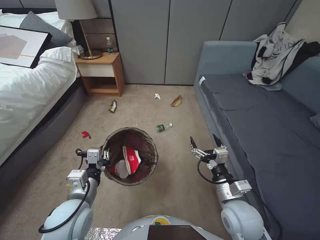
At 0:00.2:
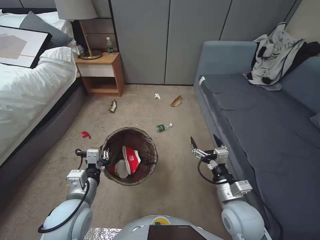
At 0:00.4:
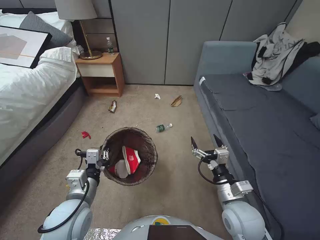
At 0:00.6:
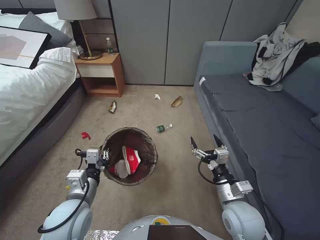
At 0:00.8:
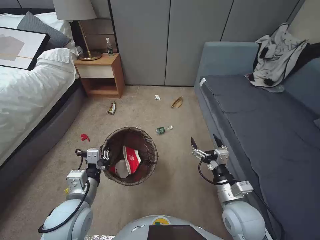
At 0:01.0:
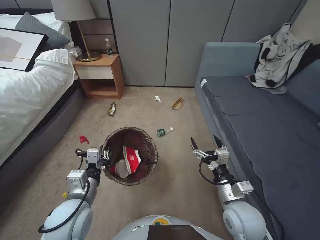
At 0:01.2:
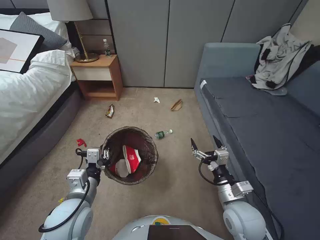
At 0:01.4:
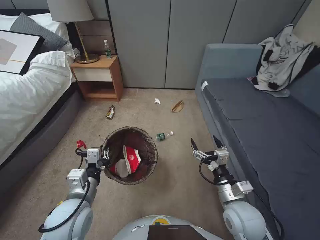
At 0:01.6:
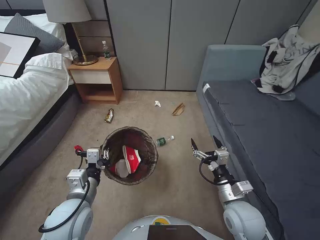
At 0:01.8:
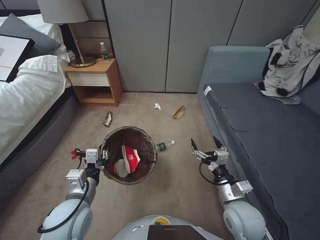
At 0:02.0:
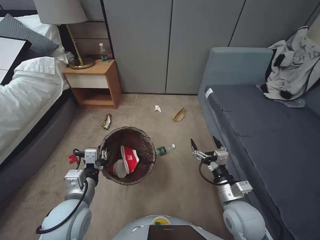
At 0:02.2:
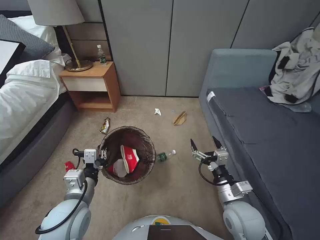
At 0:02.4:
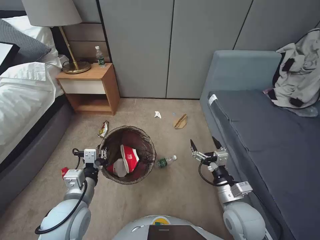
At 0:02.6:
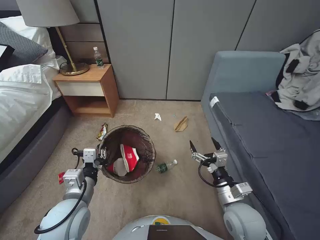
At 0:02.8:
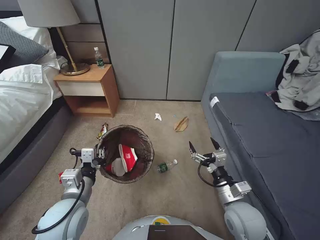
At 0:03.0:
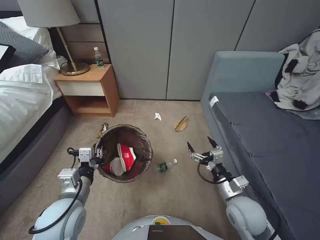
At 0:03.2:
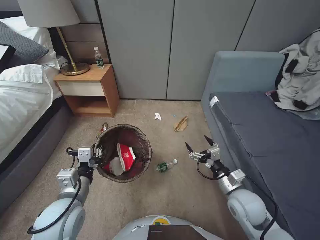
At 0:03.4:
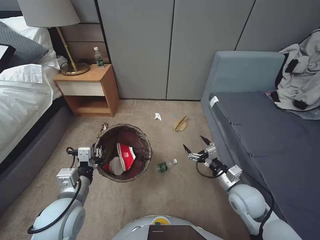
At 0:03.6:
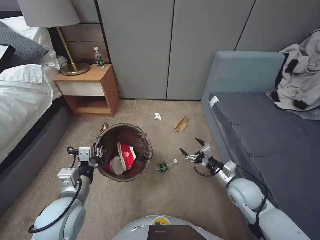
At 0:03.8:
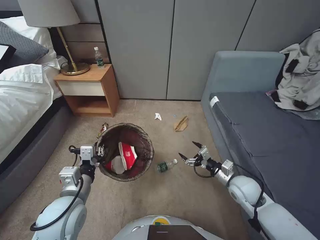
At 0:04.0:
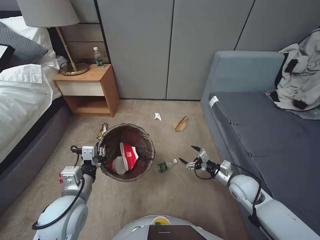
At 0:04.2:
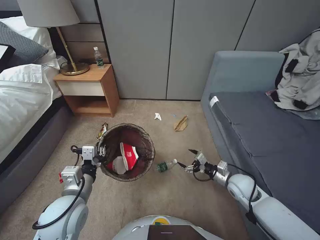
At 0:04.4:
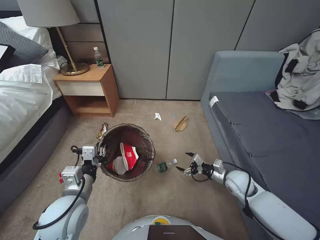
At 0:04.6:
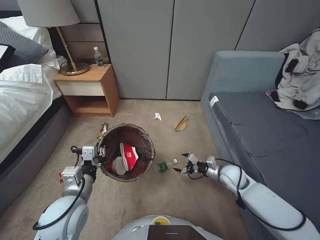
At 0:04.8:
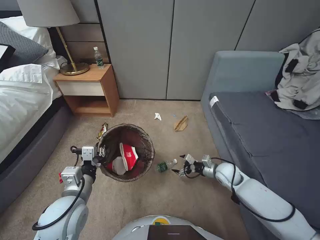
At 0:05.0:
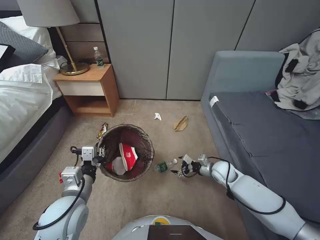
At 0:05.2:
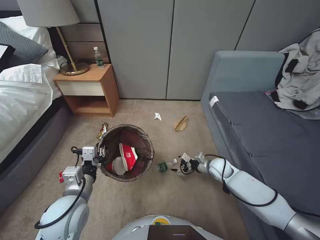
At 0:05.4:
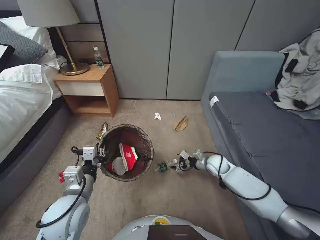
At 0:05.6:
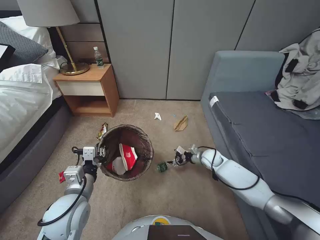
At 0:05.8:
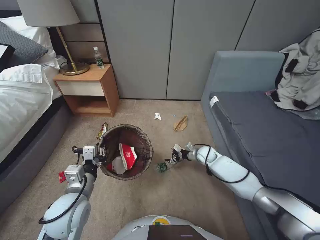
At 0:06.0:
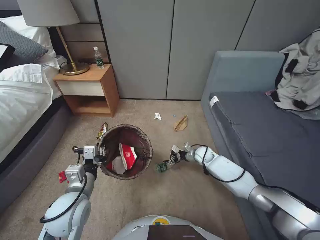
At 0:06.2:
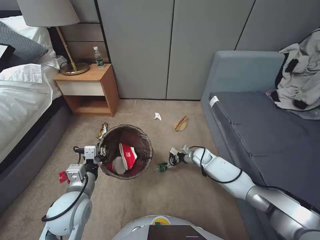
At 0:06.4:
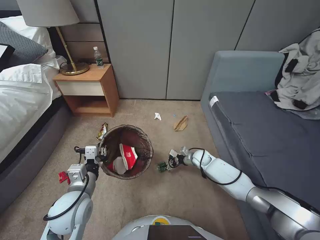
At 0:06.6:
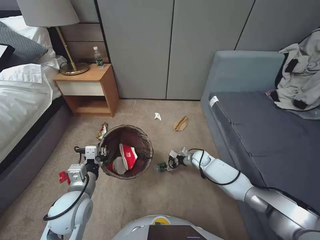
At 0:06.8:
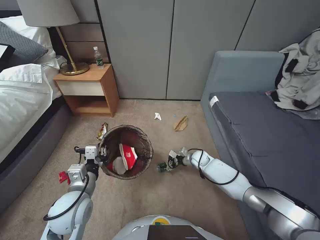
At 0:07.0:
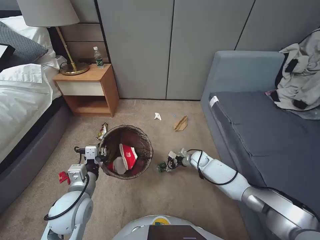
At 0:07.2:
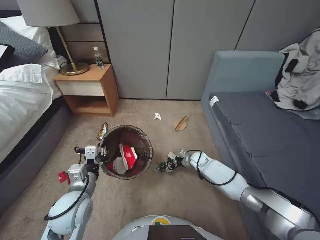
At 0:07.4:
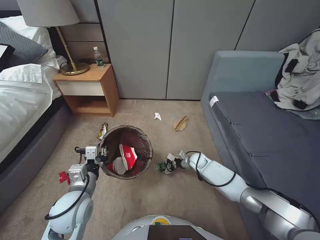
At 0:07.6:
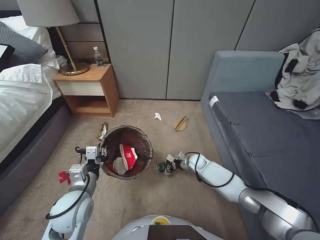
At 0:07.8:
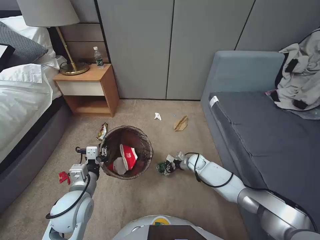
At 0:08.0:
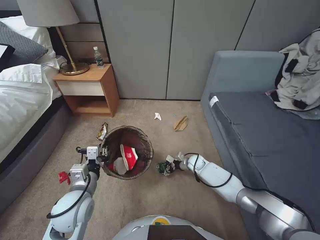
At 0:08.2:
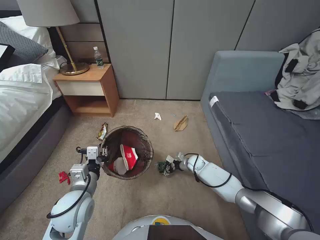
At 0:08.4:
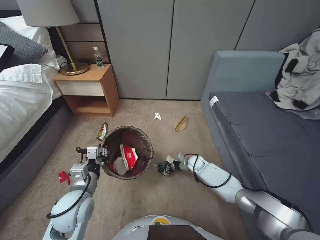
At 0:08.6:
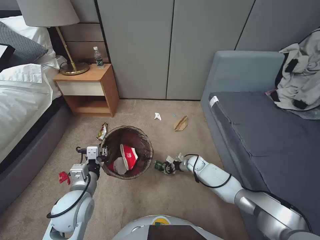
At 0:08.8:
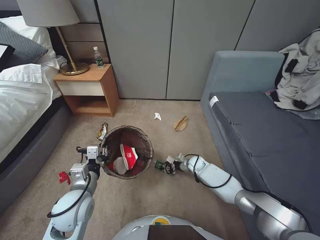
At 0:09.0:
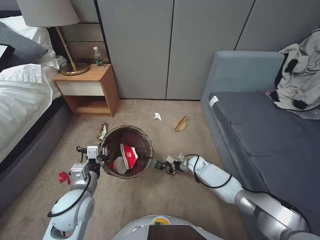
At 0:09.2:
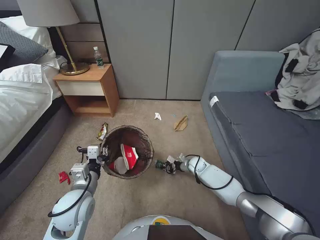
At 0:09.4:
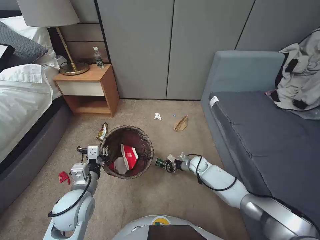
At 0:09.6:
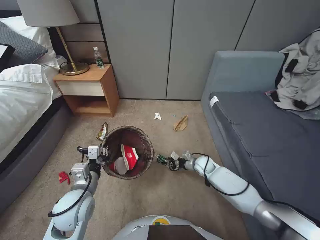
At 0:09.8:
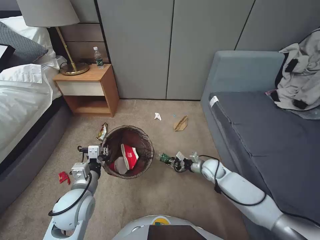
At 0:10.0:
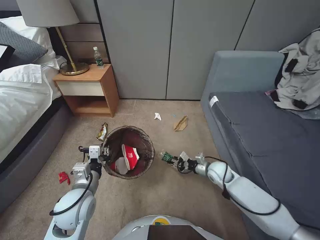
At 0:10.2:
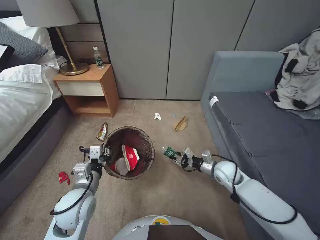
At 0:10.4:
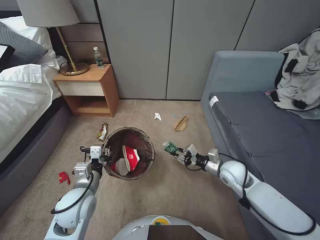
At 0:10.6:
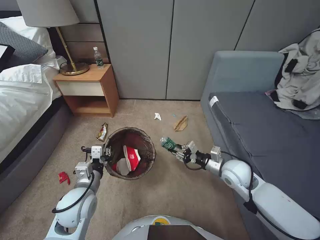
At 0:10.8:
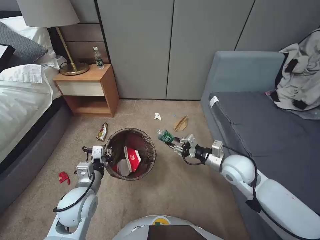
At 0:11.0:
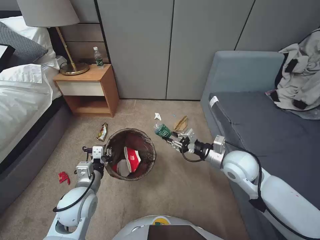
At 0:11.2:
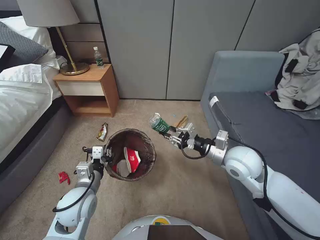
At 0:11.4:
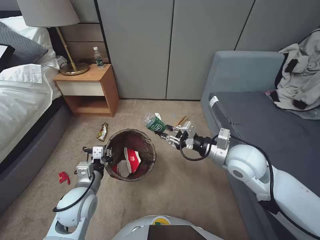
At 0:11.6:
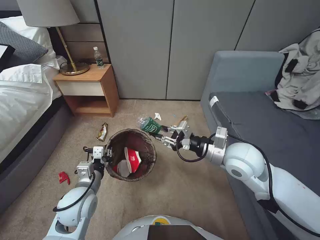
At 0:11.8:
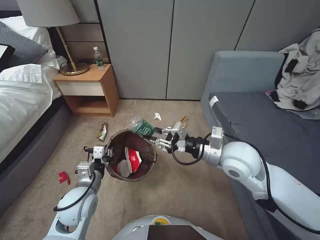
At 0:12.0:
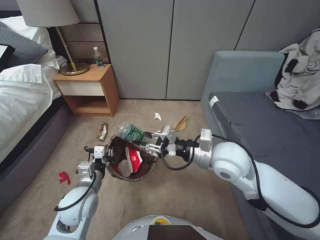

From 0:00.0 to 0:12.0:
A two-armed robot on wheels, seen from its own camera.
Task of the whole recording: Pick up the trash bin, then pick up the garbage from the floor and place it into the trash bin.
From 0:00.0 to 0:01.6: Neither gripper changes place.
From 0:03.0 to 0:04.4: The right gripper travels forward, to the right and downward by about 15 cm.
From 0:04.4 to 0:06.0: The right gripper shifts about 20 cm forward and to the left.
From 0:06.0 to 0:07.6: The right gripper is displaced downward by some 5 cm.
From 0:07.6 to 0:09.0: The right gripper closes.
From 0:09.0 to 0:10.4: The right gripper moves upward and backward, some 20 cm.
From 0:10.4 to 0:12.0: The right gripper travels upward and to the left by roughly 20 cm.

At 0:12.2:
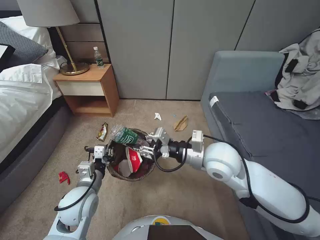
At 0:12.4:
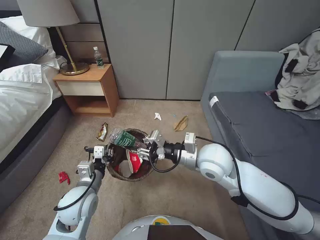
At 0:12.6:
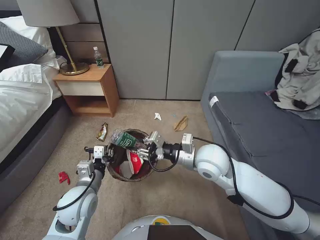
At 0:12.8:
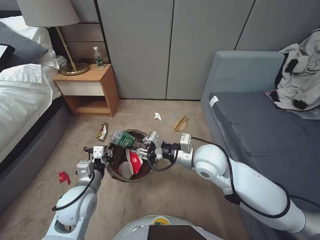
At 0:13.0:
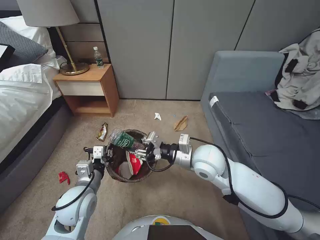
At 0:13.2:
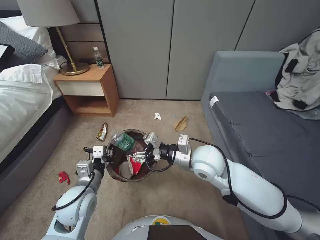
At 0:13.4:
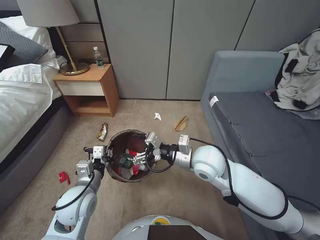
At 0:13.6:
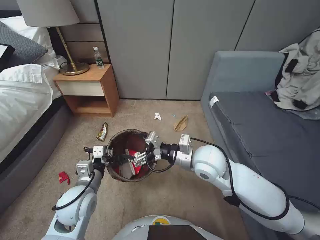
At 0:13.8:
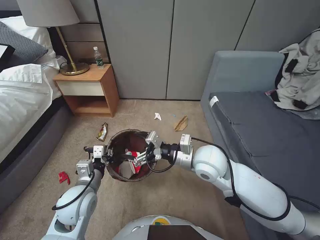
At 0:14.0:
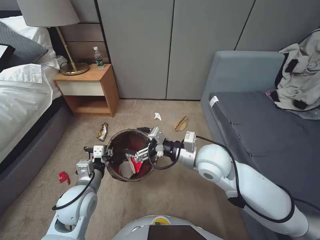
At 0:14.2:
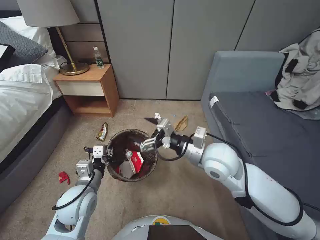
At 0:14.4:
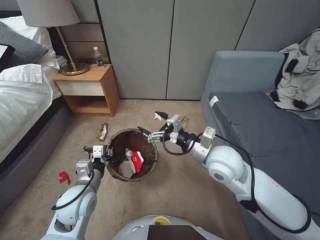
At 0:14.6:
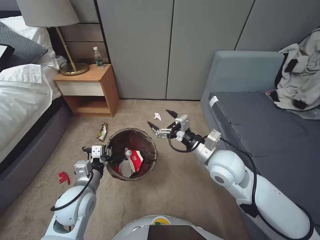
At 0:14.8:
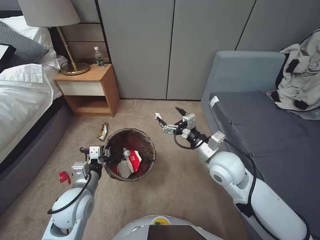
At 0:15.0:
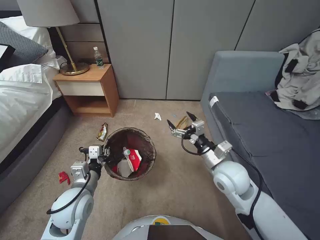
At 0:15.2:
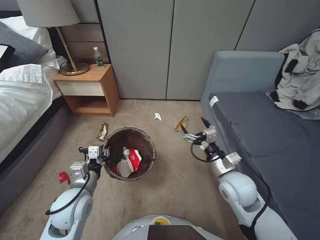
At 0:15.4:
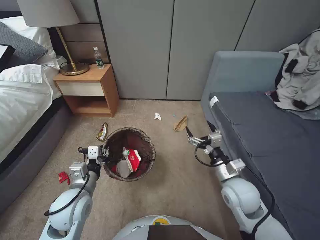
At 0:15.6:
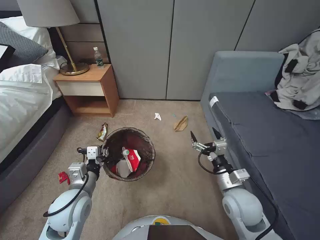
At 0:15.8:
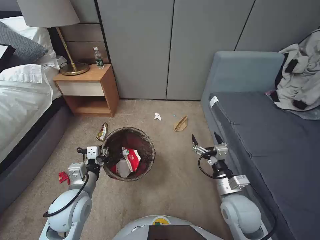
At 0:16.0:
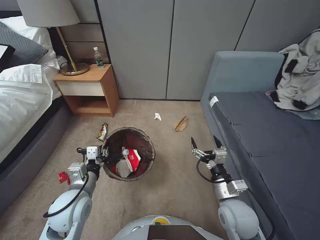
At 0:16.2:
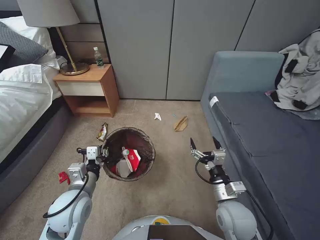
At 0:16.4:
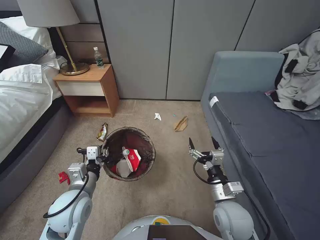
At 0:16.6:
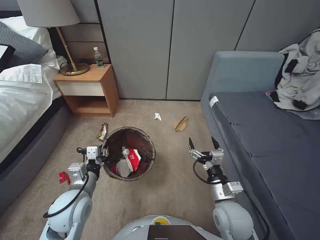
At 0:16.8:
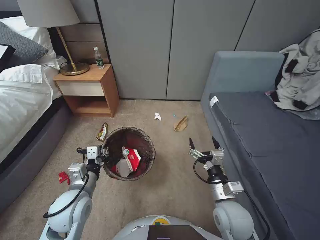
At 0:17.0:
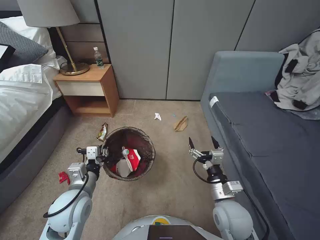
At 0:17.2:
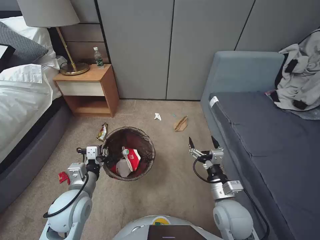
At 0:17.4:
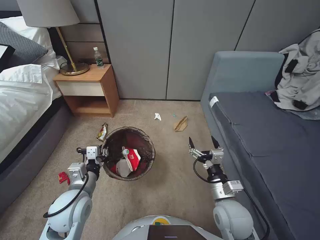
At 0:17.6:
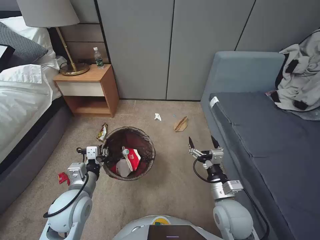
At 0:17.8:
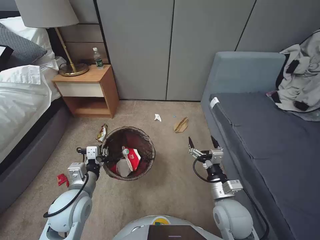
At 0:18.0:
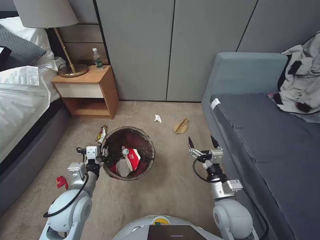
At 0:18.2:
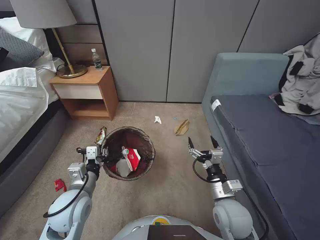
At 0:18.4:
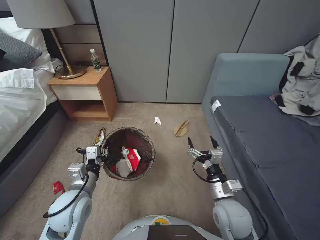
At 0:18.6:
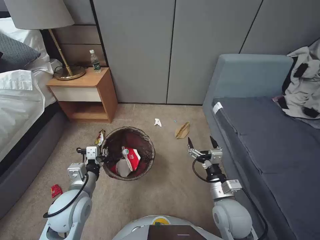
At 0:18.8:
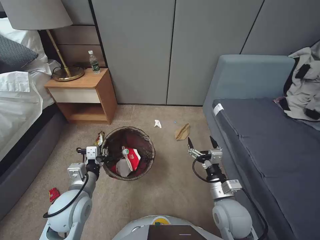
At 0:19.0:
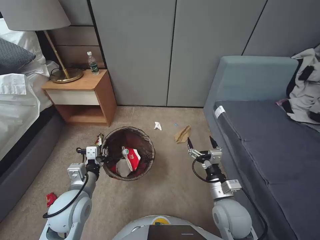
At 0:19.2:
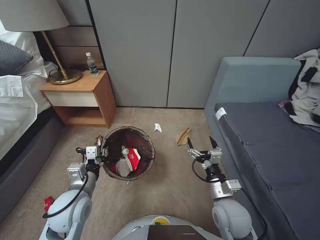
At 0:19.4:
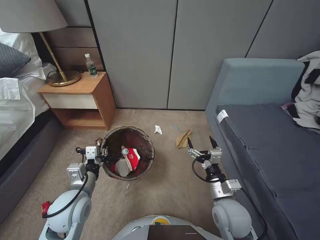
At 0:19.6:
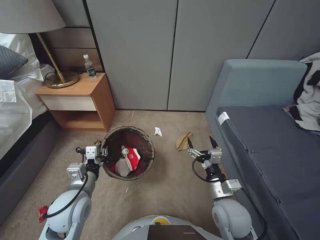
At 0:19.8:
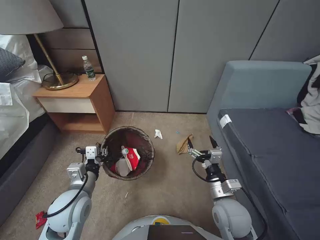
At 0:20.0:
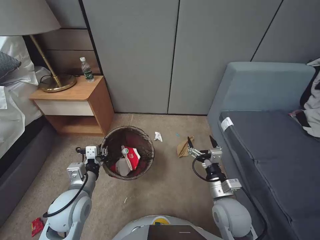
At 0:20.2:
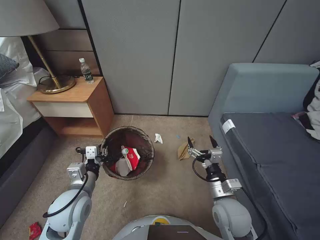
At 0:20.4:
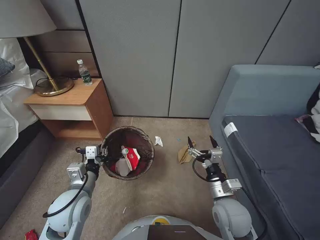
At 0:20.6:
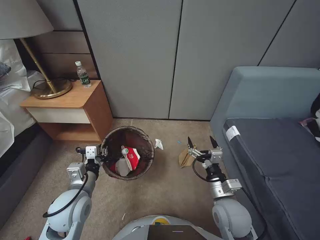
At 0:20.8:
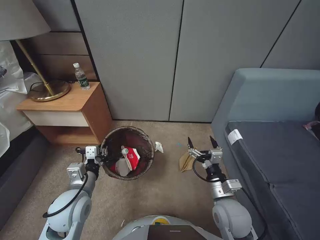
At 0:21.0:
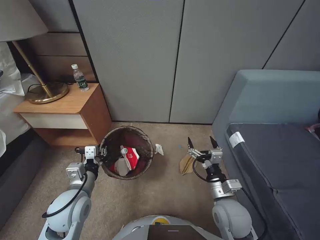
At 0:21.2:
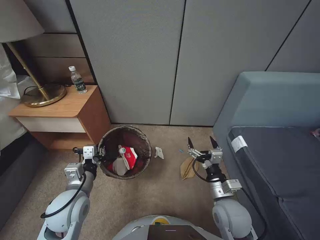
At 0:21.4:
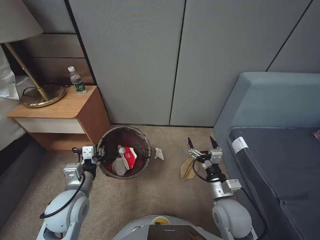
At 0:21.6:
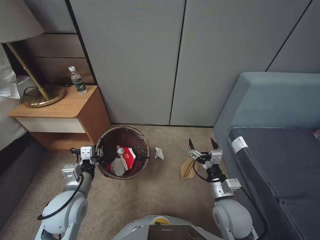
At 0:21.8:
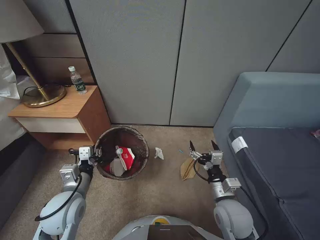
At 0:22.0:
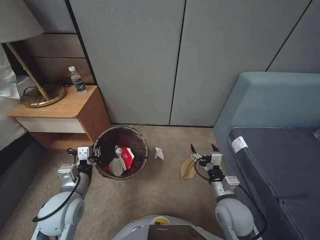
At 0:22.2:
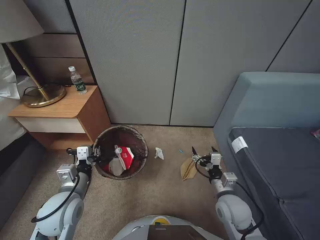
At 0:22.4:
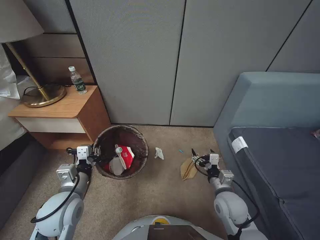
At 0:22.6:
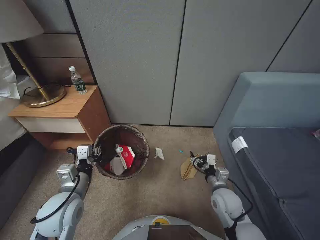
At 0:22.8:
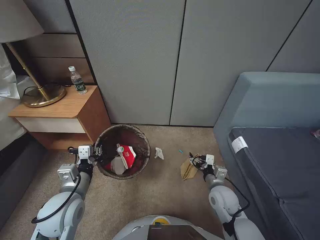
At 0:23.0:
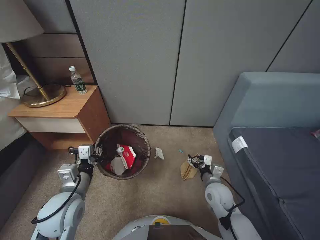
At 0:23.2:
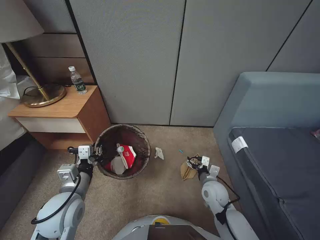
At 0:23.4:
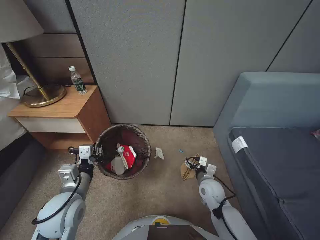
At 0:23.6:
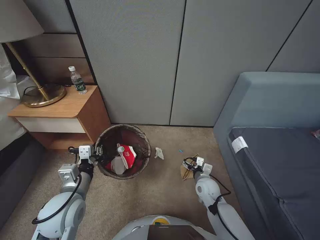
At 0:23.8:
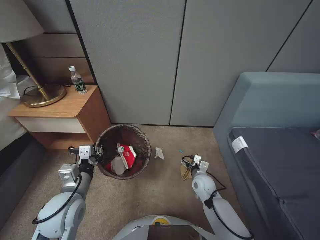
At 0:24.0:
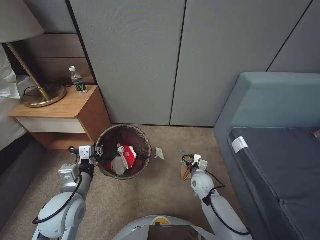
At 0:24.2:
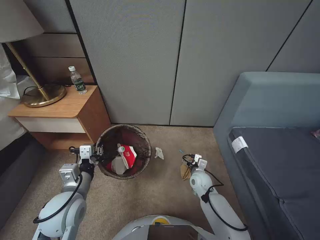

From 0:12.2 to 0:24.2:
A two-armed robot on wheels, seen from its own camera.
Task of the whole recording: Pick up the trash bin, then pick up the garbage from the floor and place it into the trash bin.
From 0:12.2 to 0:13.8: The right gripper opens up.
From 0:13.8 to 0:15.2: The right gripper travels to the right and downward by about 10 cm.
From 0:15.2 to 0:16.6: The right gripper goes about 10 cm backward and downward.
From 0:16.6 to 0:18.2: Both grippers stay about where they are.
From 0:21.2 to 0:22.6: The right gripper heads downward, covering approximately 5 cm.
From 0:22.6 to 0:24.2: The right gripper goes some 15 cm forward and downward.
